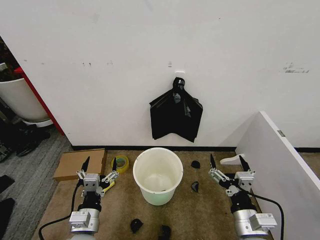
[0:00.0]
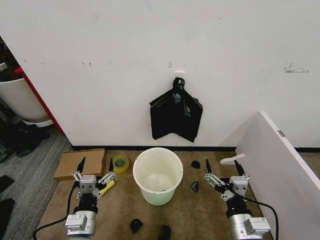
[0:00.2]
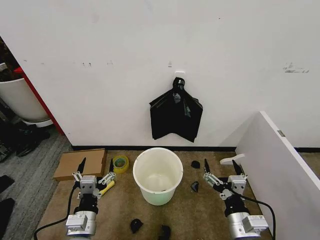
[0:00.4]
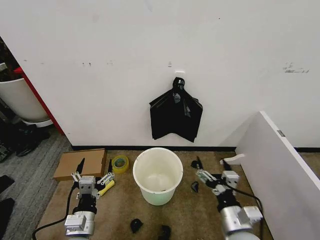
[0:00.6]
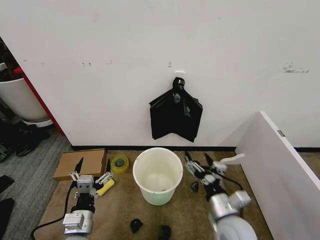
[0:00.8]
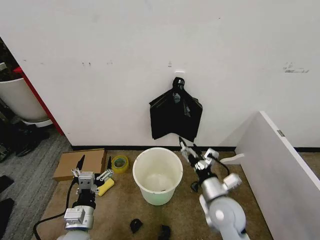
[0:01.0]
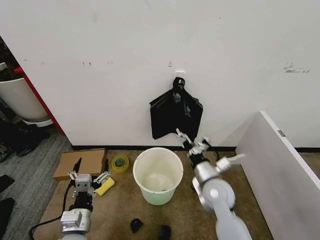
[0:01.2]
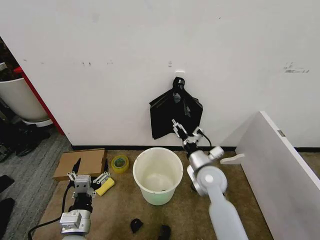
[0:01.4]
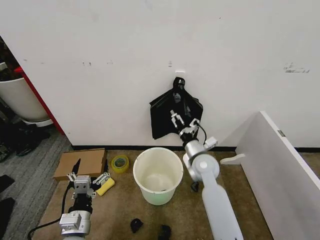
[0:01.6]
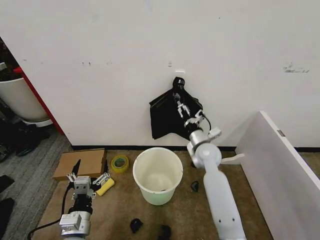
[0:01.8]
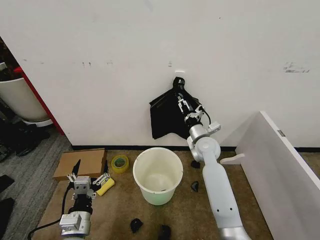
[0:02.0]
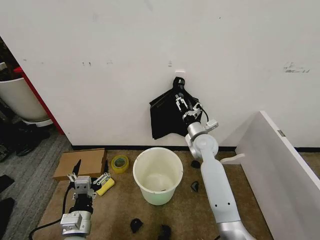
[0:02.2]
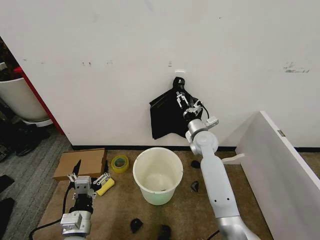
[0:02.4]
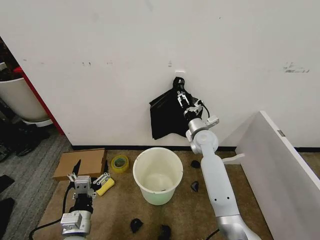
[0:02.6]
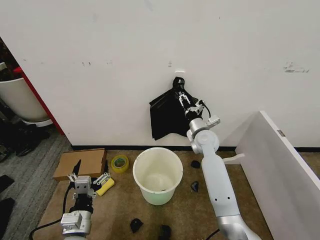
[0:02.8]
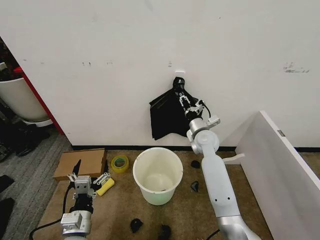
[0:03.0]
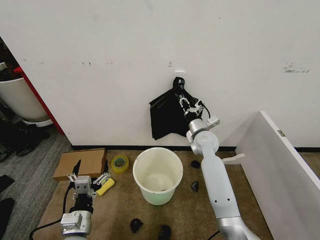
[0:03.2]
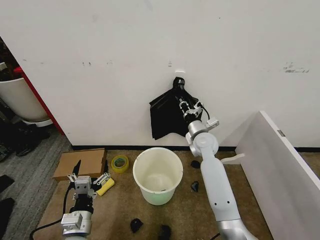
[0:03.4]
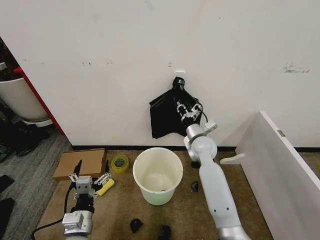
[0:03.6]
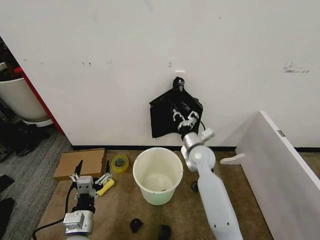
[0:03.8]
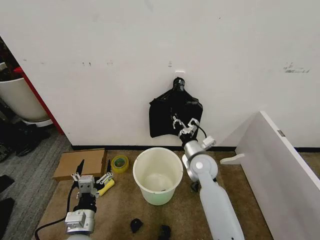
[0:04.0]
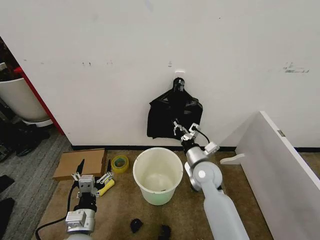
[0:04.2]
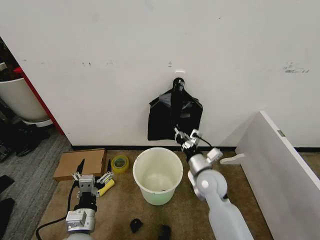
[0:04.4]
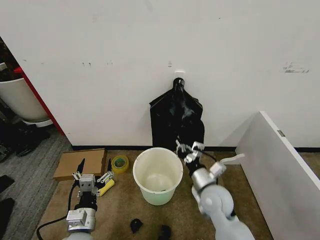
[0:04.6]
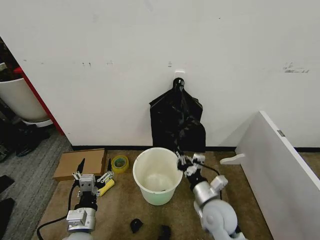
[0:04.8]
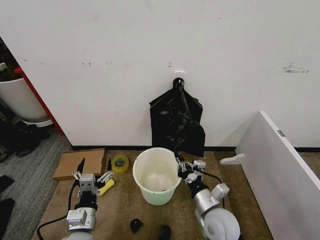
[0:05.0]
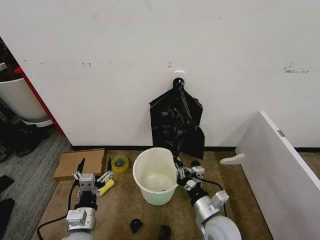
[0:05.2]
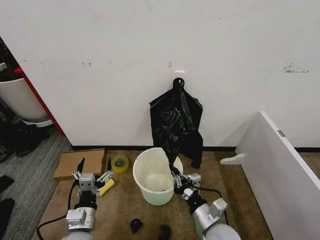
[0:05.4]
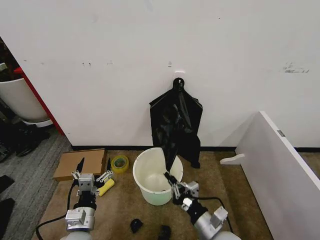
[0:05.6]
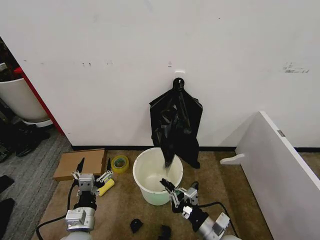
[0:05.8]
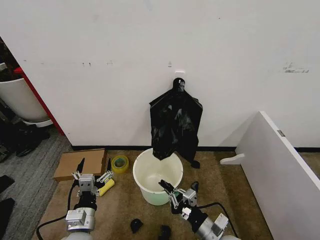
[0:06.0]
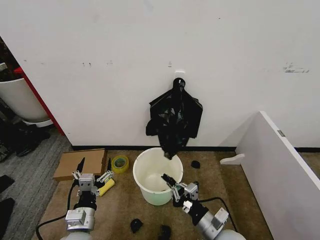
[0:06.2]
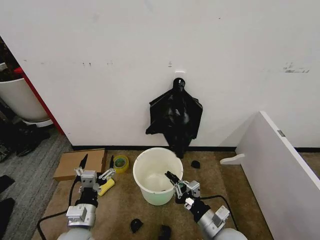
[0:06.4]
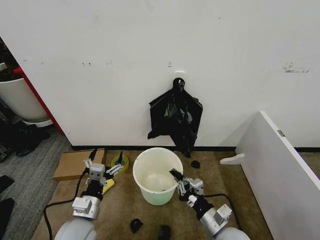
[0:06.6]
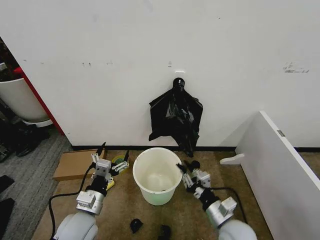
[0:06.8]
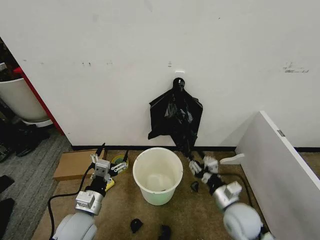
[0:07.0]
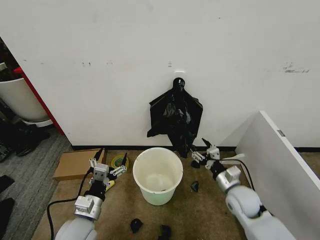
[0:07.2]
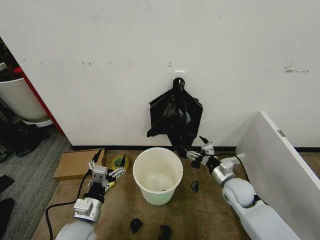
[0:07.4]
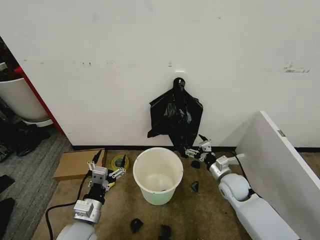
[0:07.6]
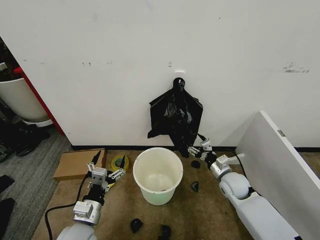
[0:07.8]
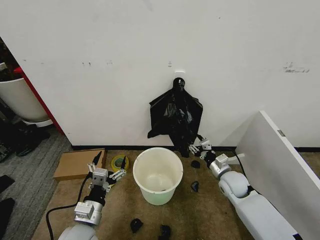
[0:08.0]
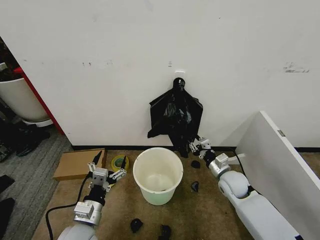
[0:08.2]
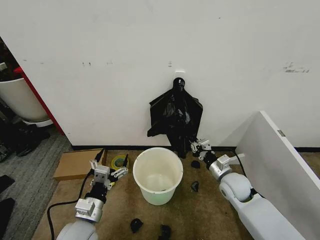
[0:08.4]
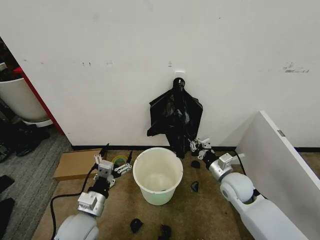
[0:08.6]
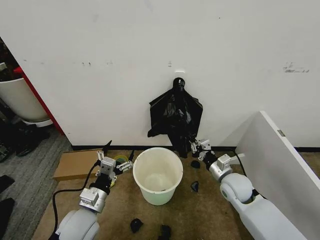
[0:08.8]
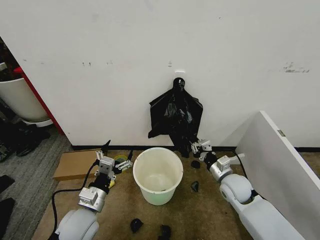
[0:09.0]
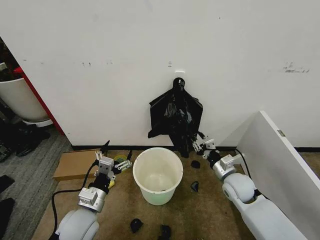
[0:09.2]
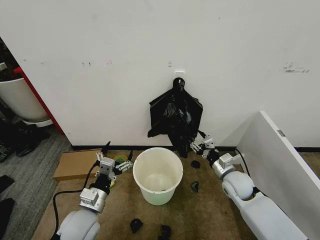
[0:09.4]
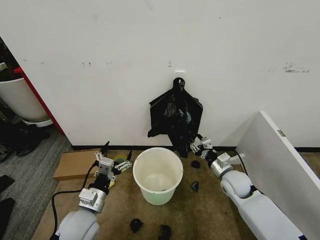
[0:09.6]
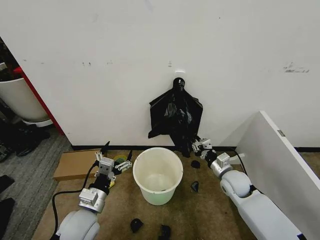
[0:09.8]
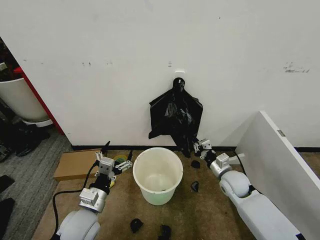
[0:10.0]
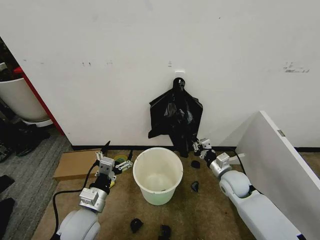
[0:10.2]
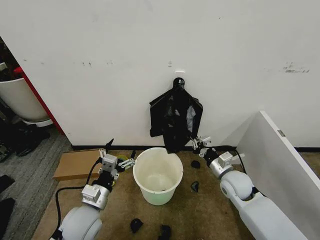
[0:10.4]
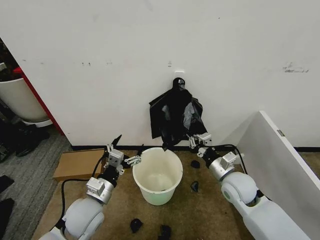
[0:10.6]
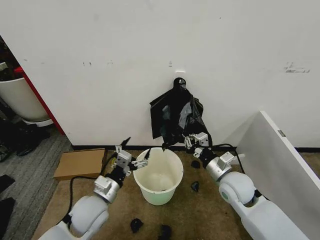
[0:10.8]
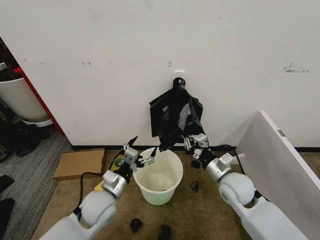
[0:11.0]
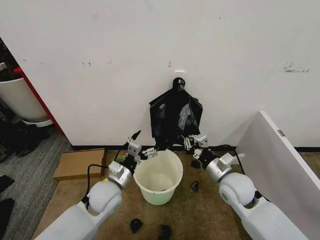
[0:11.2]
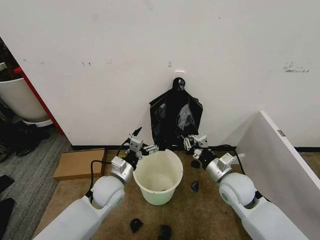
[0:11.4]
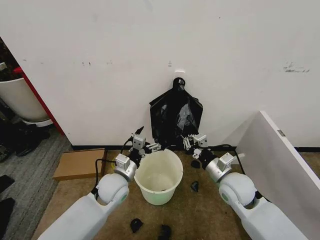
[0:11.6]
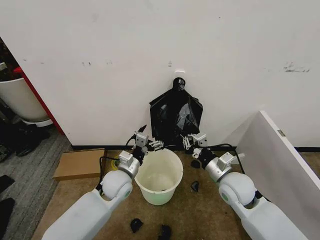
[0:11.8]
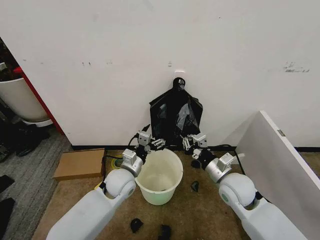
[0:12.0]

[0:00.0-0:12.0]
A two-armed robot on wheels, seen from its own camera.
Task of the whole recording: Place the garbage bag over the trash bin.
0:01.6 to 0:03.0: The right gripper heads forward, covering some 10 cm, and closes its fingers.
0:03.0 to 0:04.4: The right gripper goes about 15 cm backward, and closes up.
0:04.4 to 0:06.0: The right gripper heads backward, covering some 15 cm.
0:06.0 to 0:07.6: The right gripper goes some 20 cm forward, and opens.
0:07.6 to 0:09.0: The right gripper closes its fingers.
0:09.0 to 0:10.4: The right gripper opens and closes again.
0:10.4 to 0:12.0: The left gripper travels forward and to the right by some 15 cm. The right gripper moves roughly 5 cm.

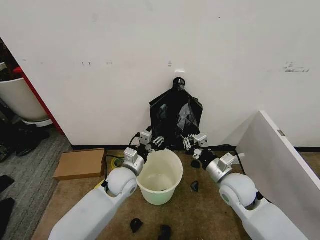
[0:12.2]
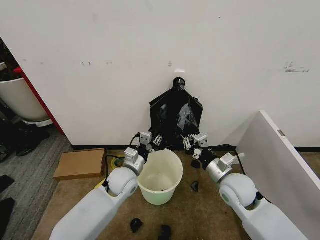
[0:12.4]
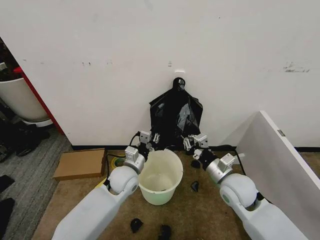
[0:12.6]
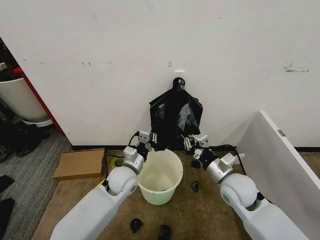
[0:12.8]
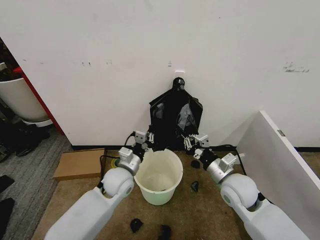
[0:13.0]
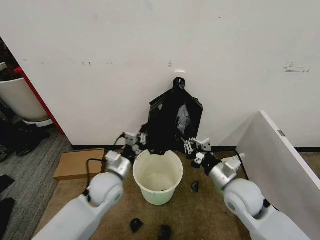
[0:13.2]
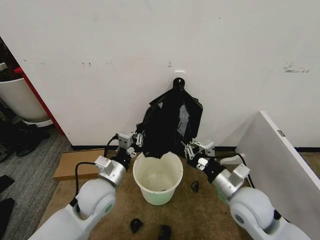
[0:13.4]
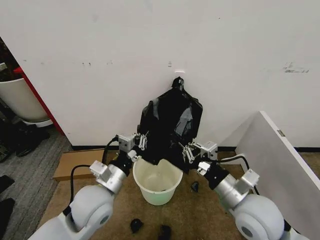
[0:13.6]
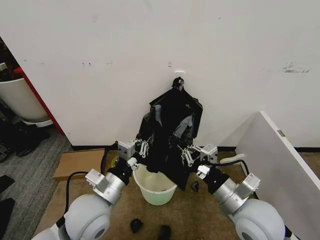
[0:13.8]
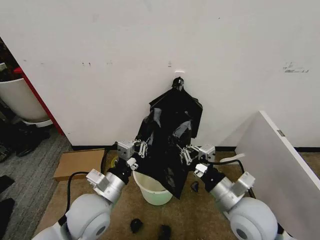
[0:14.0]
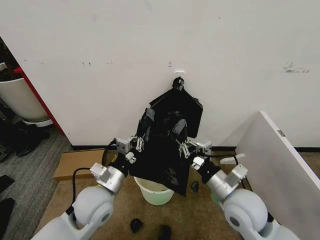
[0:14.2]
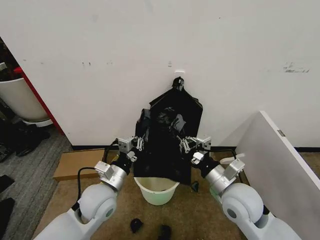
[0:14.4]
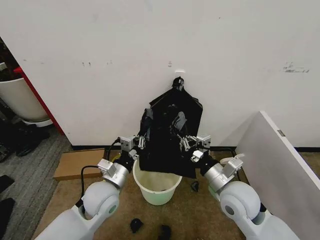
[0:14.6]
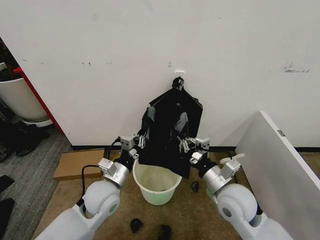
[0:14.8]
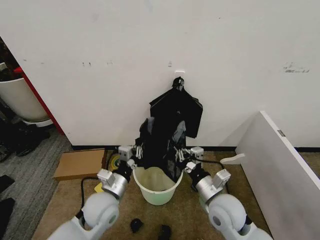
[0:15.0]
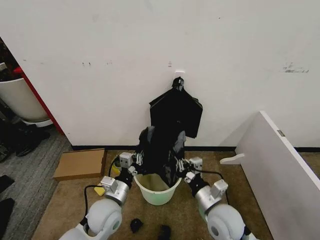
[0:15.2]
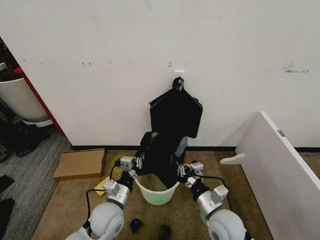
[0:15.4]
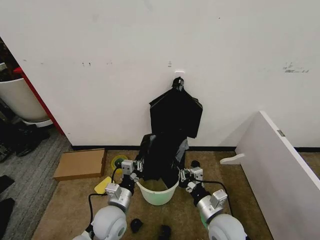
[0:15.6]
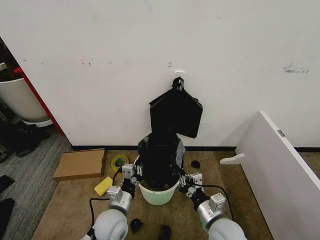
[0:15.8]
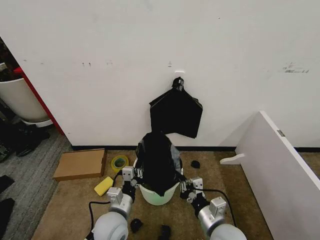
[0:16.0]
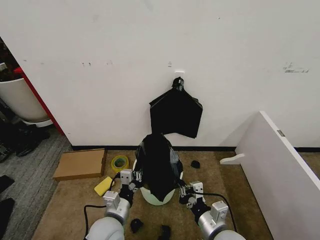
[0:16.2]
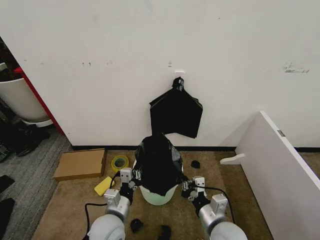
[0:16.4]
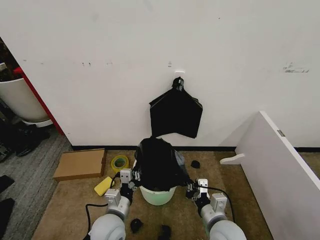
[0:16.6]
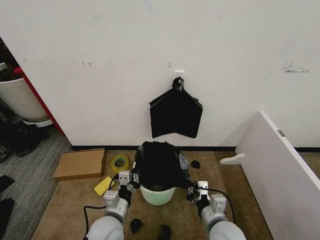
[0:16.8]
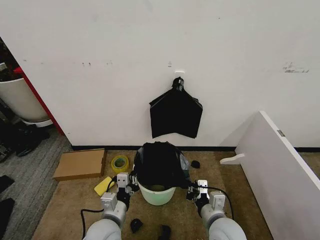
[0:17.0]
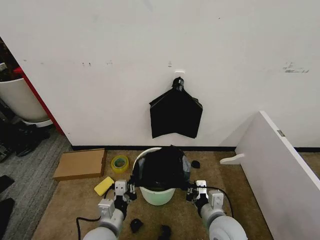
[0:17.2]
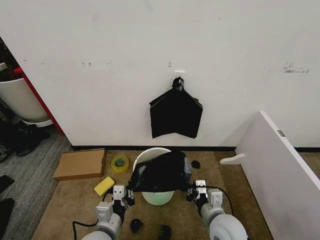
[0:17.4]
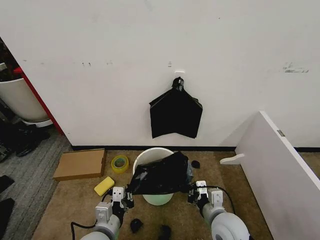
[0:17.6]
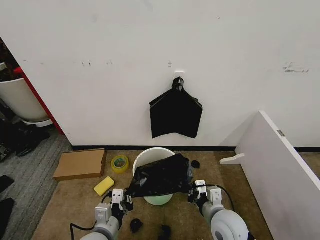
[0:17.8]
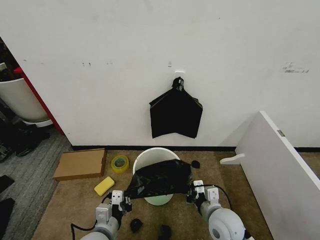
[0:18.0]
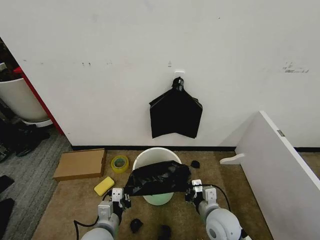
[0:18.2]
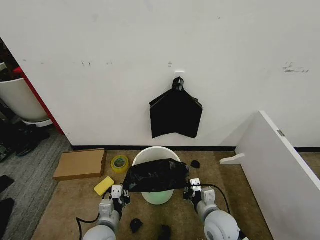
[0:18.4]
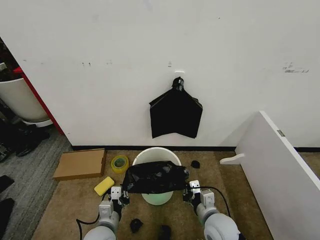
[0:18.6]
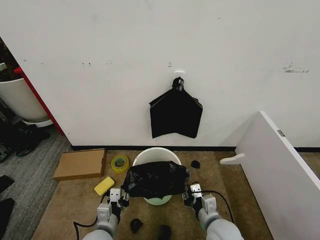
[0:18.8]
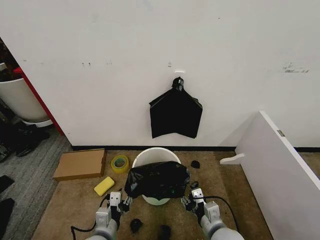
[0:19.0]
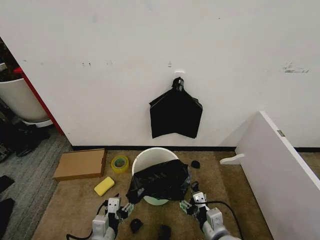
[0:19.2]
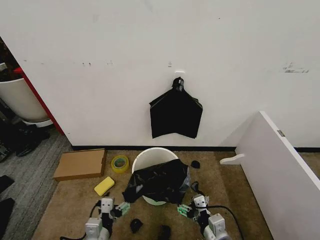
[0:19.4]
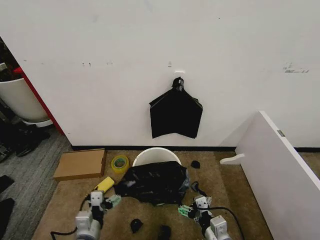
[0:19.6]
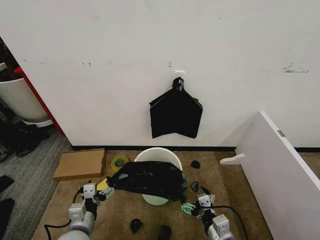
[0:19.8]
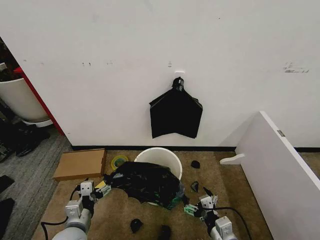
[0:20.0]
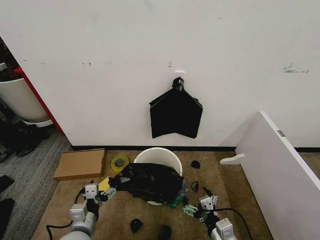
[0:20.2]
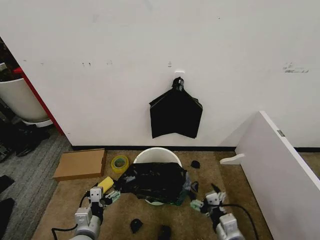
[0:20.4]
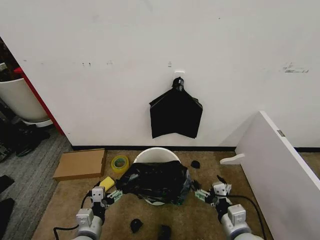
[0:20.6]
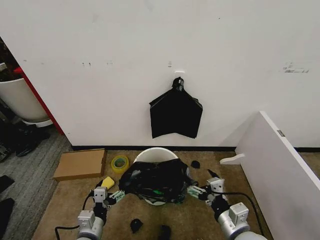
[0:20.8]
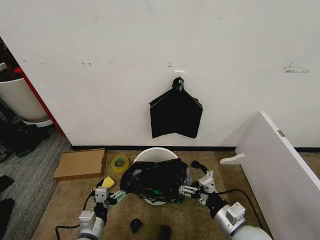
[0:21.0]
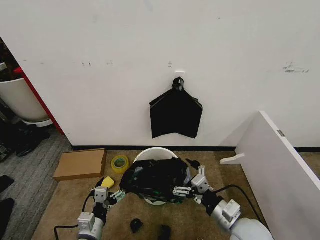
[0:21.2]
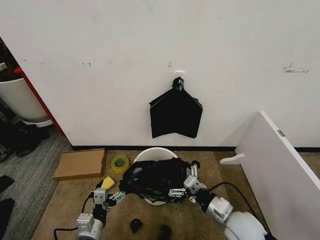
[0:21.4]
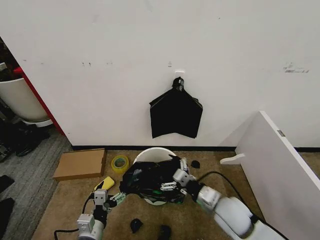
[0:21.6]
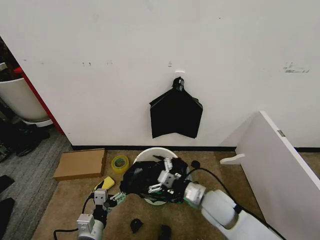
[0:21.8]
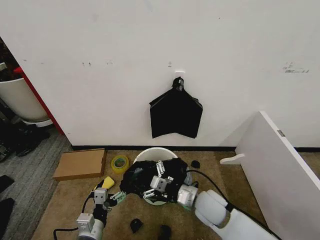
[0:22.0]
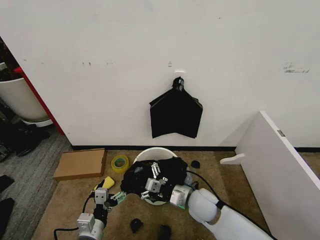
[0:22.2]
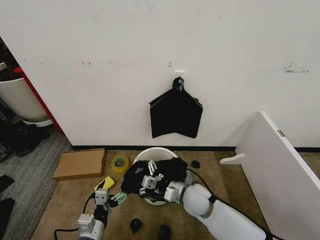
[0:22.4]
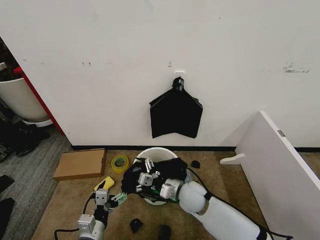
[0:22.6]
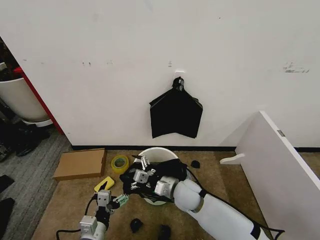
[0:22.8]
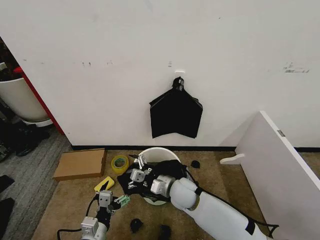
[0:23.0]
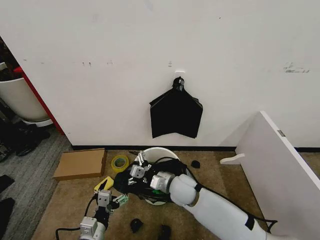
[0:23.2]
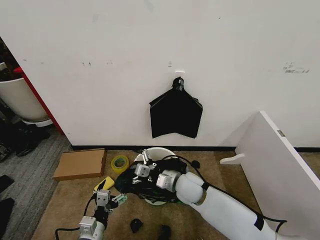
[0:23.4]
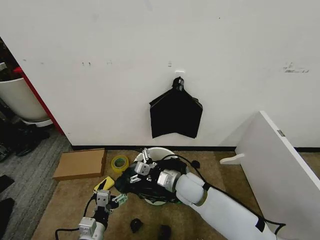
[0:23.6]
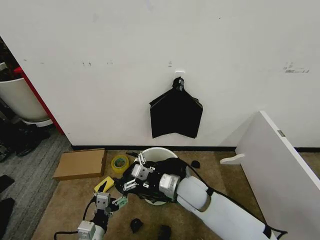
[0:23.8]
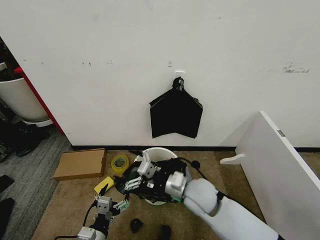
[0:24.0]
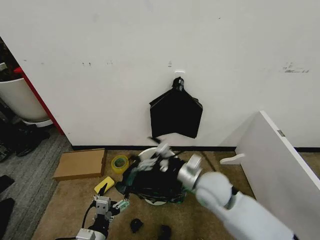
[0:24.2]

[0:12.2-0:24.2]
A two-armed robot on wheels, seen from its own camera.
Task of the whole recording: Place the garbage bag over the trash bin.
0:12.2 to 0:13.8: Both grippers travel together backward and upward, about 15 cm. The left gripper closes up.
0:13.8 to 0:15.2: The grippers both shift downward by approximately 10 cm.
0:18.2 to 0:19.8: The right gripper goes some 10 cm backward, and opens up, while the left gripper travels to the left by about 5 cm, and opens.
0:19.8 to 0:21.2: The right gripper shifts approximately 5 cm upward.
0:21.2 to 0:22.6: The right gripper shifts about 20 cm forward, to the left and downward.
0:22.6 to 0:24.2: The right gripper moves upward, about 10 cm.
